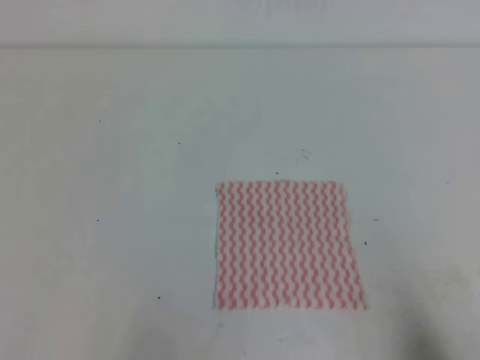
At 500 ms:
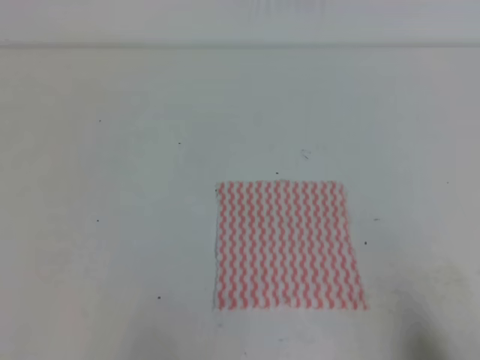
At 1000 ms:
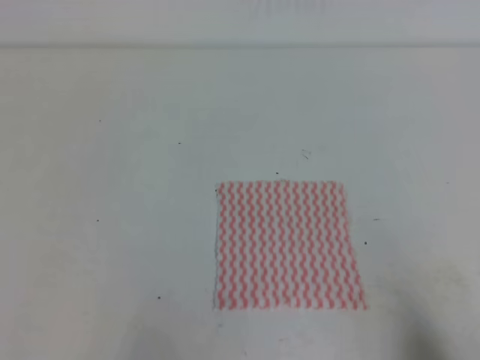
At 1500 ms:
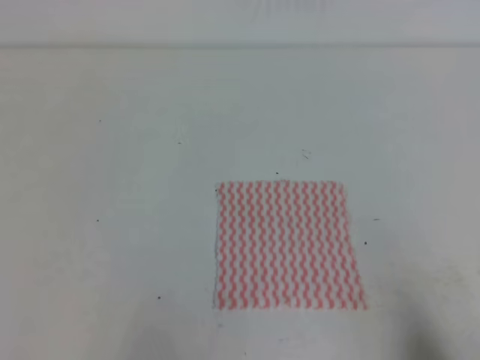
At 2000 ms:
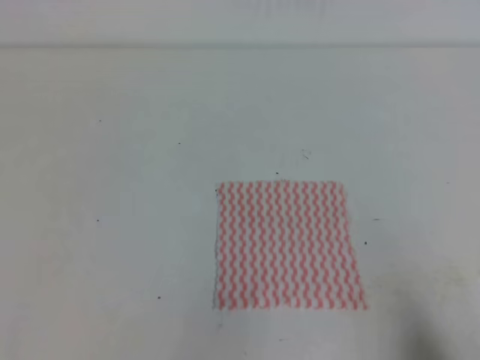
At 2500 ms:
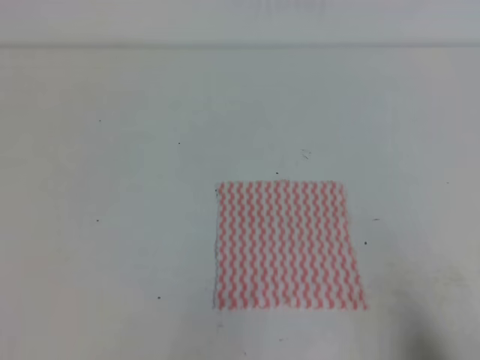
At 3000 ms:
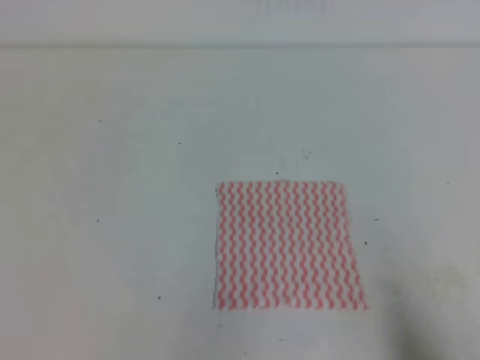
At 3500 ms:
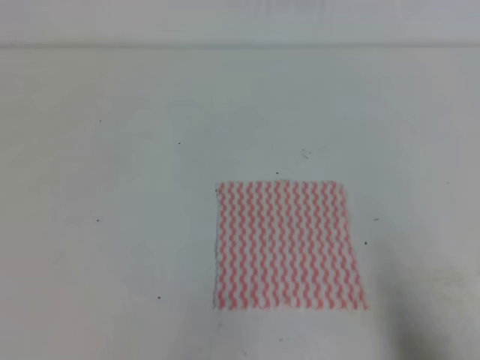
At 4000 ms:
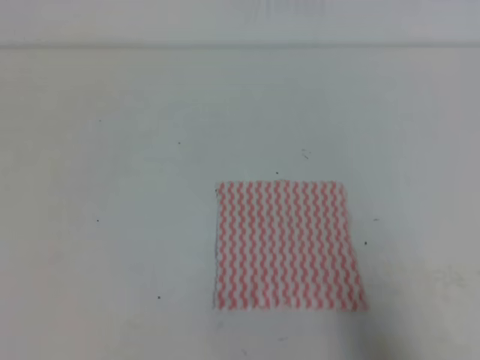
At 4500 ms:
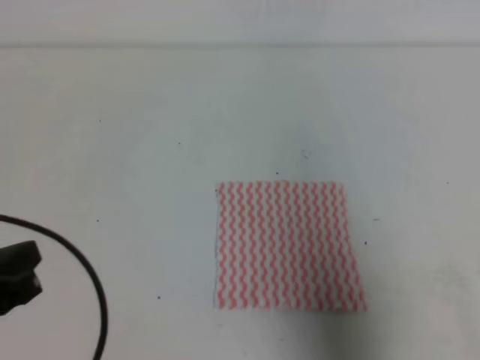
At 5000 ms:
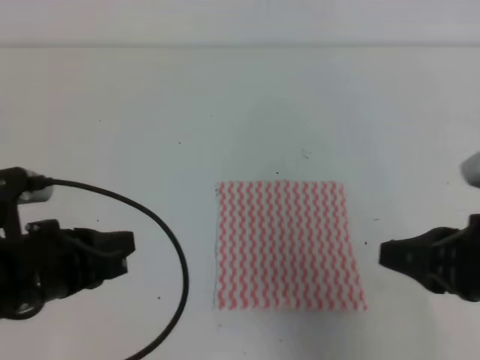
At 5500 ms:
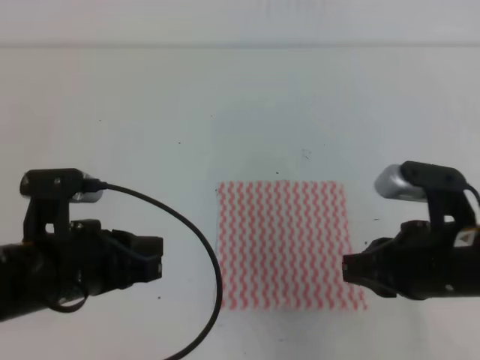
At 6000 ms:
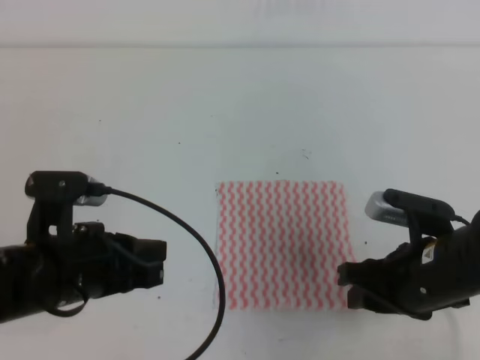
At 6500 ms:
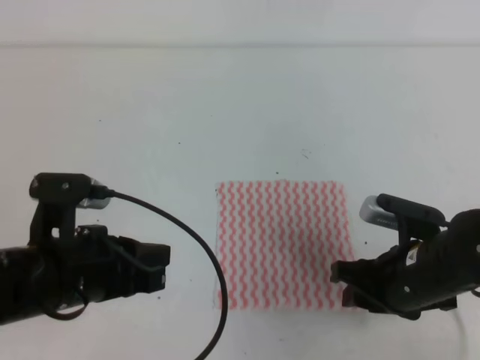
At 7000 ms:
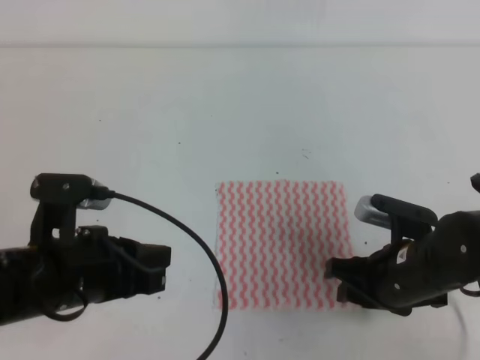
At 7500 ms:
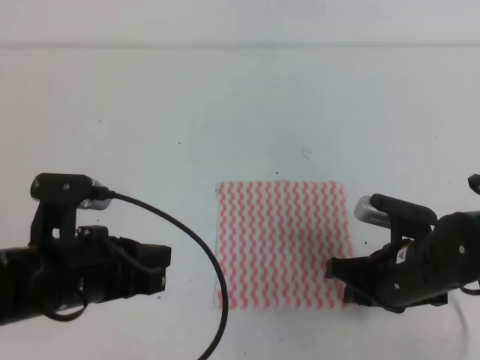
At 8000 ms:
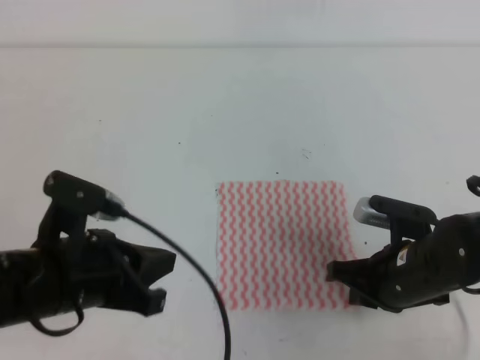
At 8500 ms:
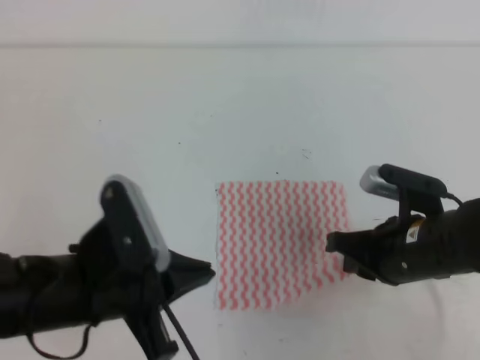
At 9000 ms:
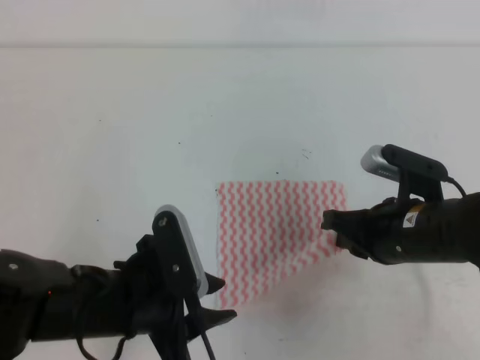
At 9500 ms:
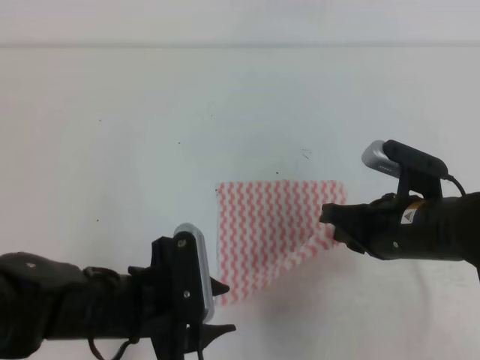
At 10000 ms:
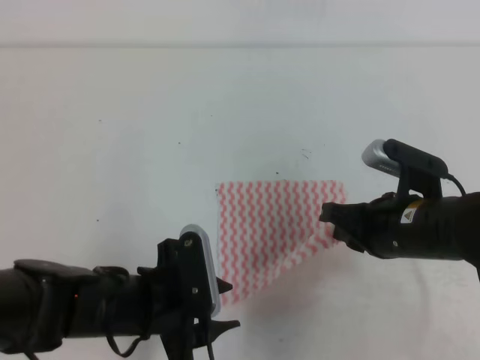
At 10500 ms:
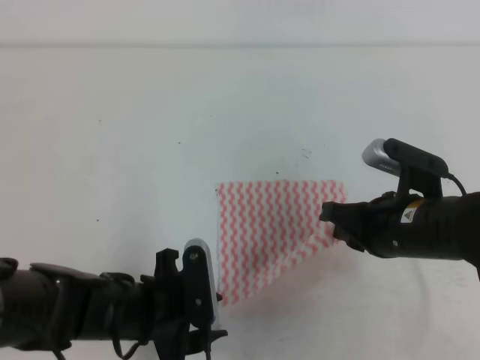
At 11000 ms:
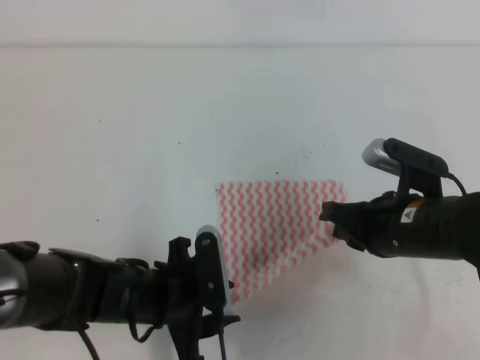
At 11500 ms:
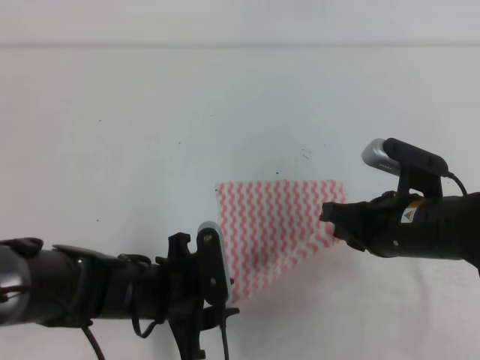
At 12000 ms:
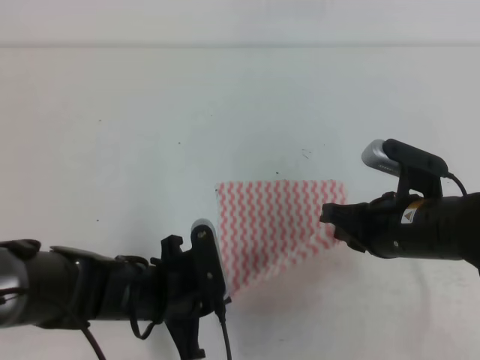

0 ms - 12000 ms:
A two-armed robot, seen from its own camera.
2000 ms - 4000 ms: The right gripper moves upward, some 5 cm.
4000 ms - 6000 ms: The right gripper is displaced forward and to the left by approximately 20 cm, and opens up. The left gripper goes about 15 cm forward and to the right.
6000 ms - 8000 ms: The right gripper shifts by some 5 cm, and closes up.
8000 ms - 10000 ms: The right gripper ends up some 5 cm from where it was; the left gripper heads downward and to the right, covering some 10 cm, and opens up.
10000 ms - 12000 ms: The left gripper closes its fingers.

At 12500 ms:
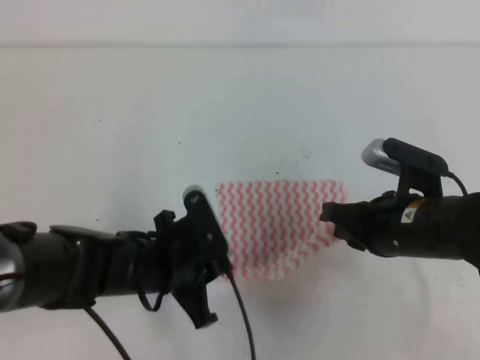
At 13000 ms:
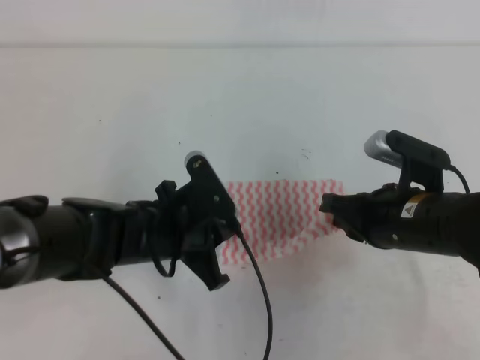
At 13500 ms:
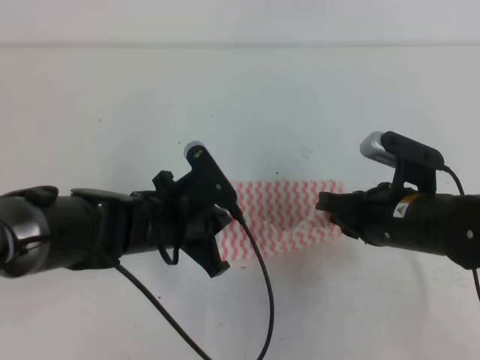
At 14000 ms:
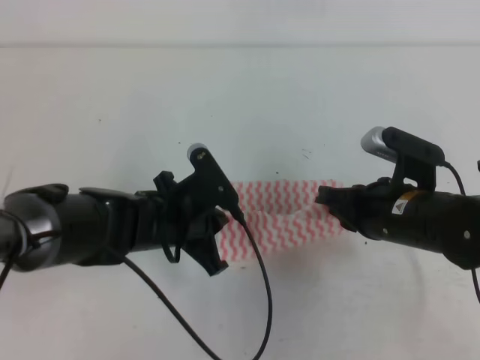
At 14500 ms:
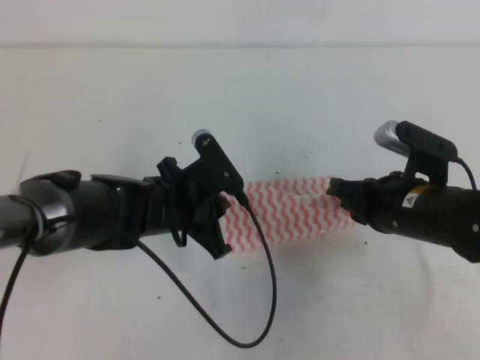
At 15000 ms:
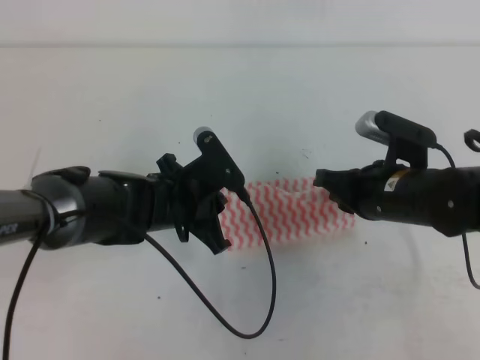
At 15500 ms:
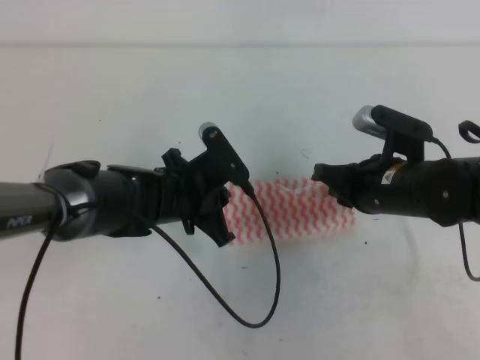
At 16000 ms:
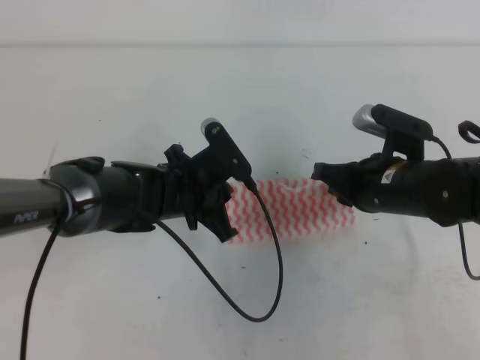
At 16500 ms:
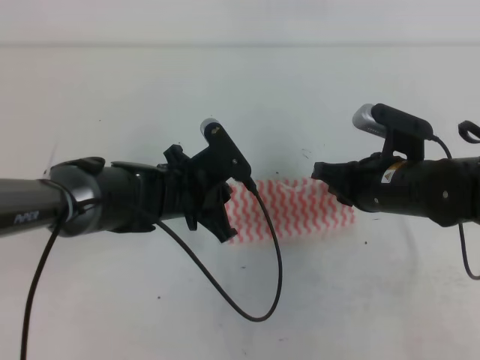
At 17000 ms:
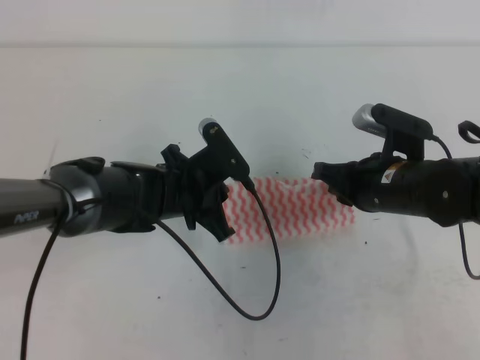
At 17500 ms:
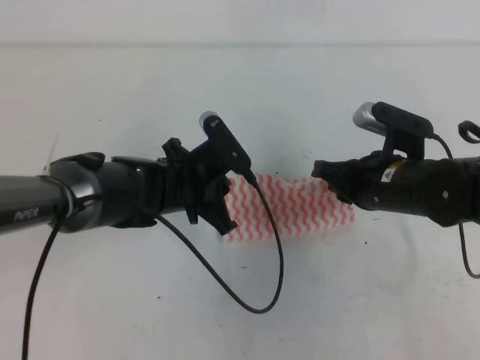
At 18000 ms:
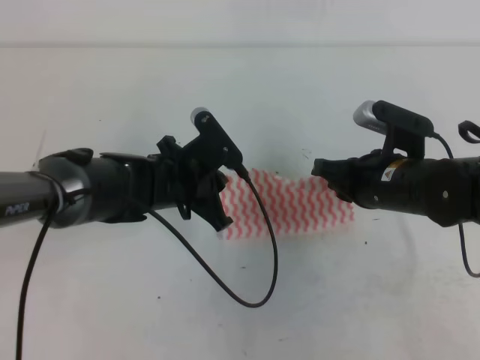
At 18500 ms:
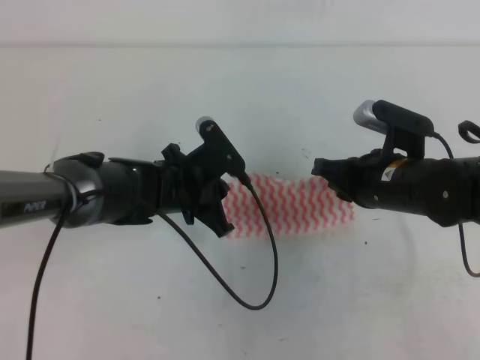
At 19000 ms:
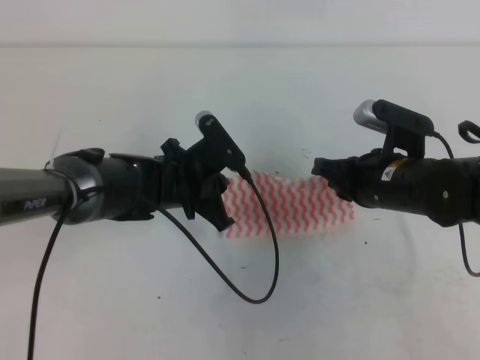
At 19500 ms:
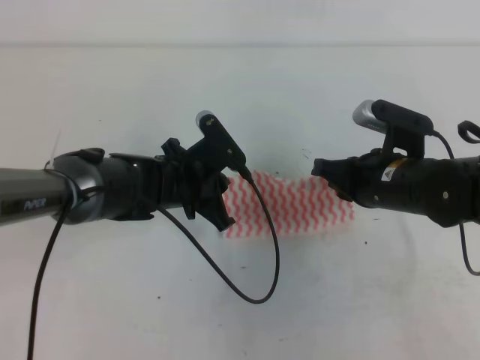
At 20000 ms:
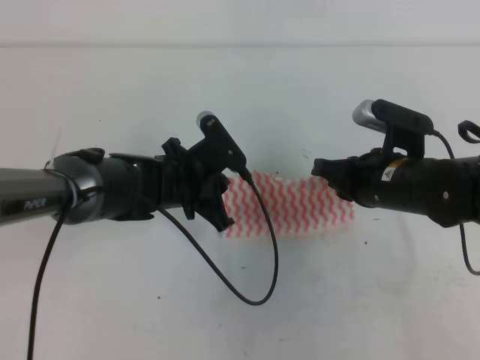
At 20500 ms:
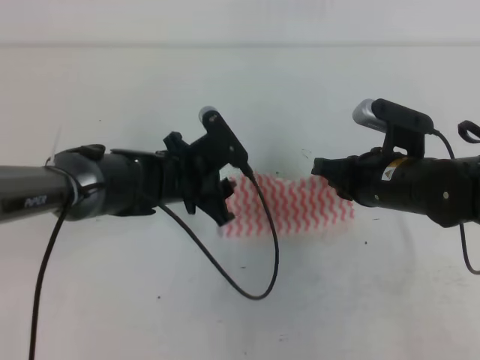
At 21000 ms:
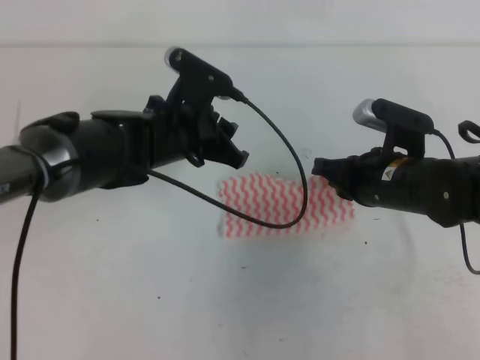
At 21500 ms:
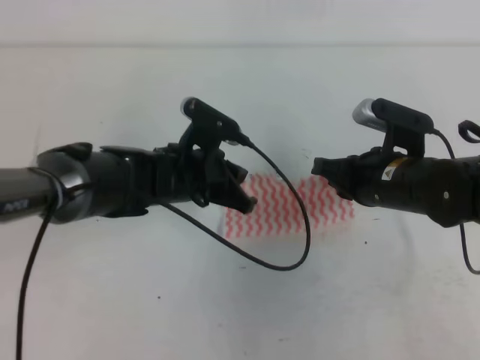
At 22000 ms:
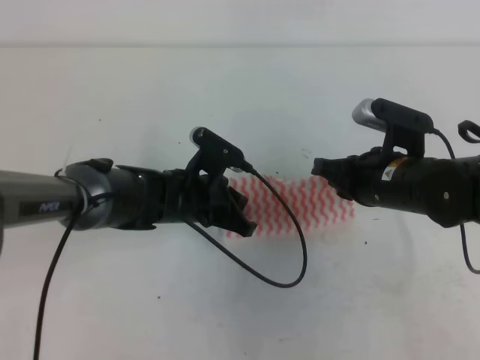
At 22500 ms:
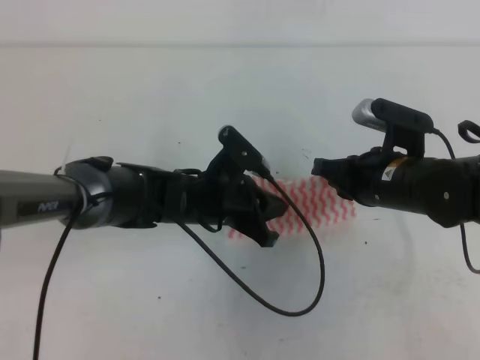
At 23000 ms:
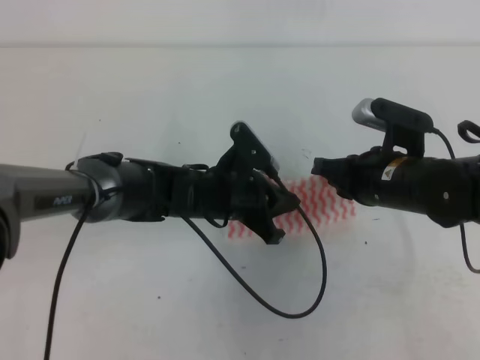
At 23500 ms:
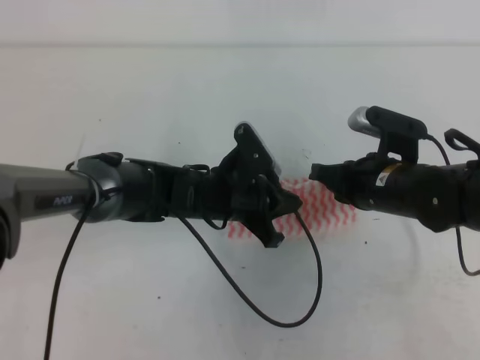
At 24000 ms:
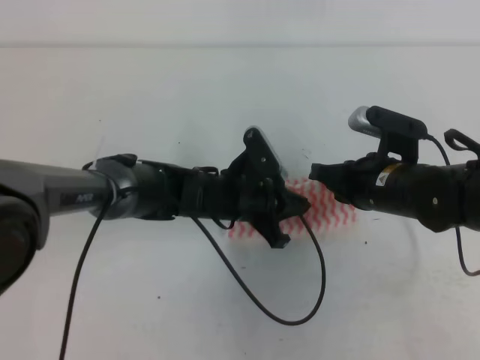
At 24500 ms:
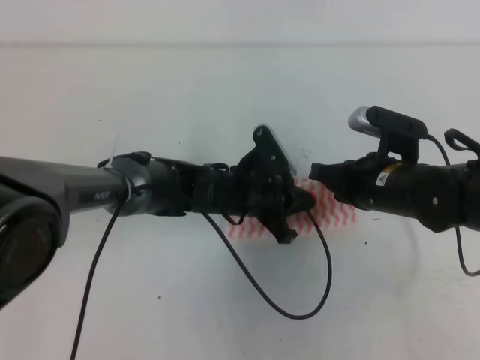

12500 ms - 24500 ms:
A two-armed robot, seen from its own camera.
12500 ms - 14500 ms: The left gripper travels forward by approximately 5 cm.
14500 ms - 18500 ms: The grippers move only a little.
18500 ms - 20500 ms: The left gripper opens up.
20500 ms - 22500 ms: The left gripper moves some 5 cm upward and comes back, and closes its fingers.
22500 ms - 24500 ms: The left gripper moves some 5 cm.

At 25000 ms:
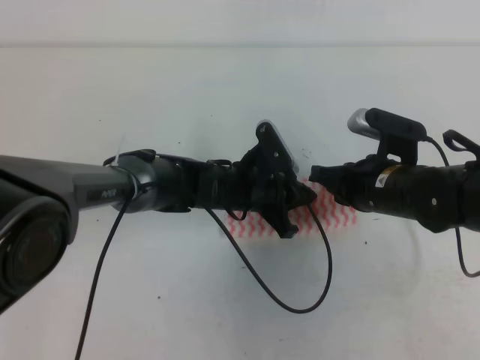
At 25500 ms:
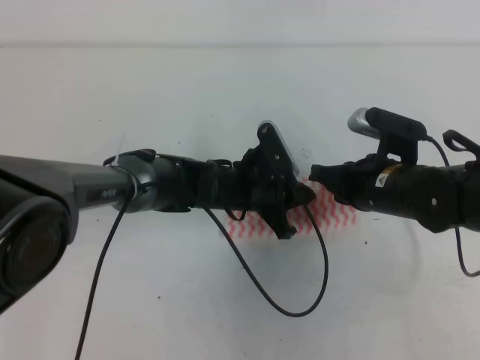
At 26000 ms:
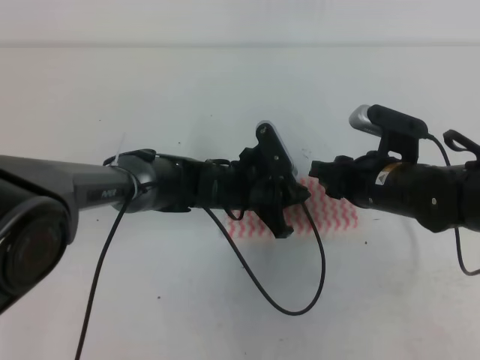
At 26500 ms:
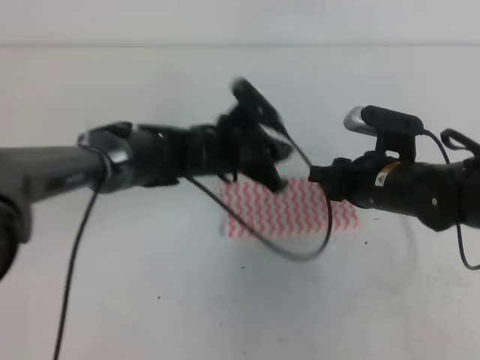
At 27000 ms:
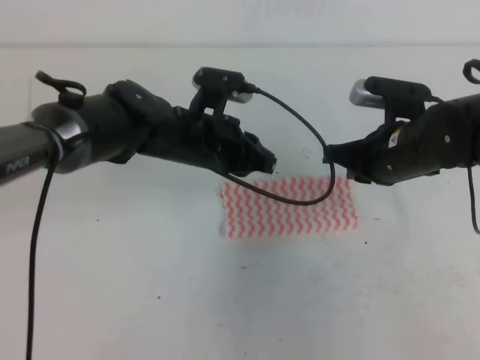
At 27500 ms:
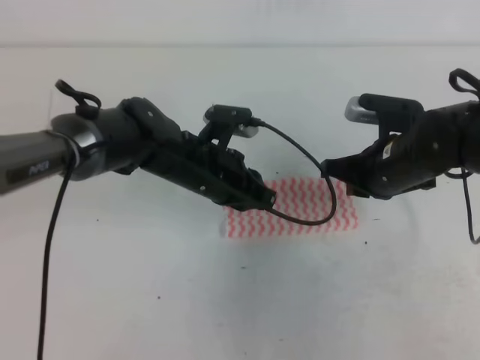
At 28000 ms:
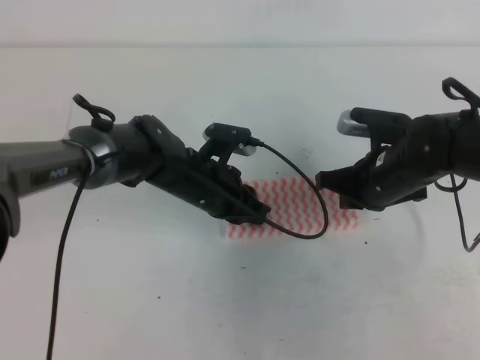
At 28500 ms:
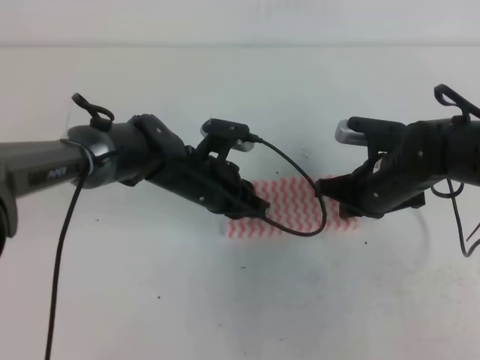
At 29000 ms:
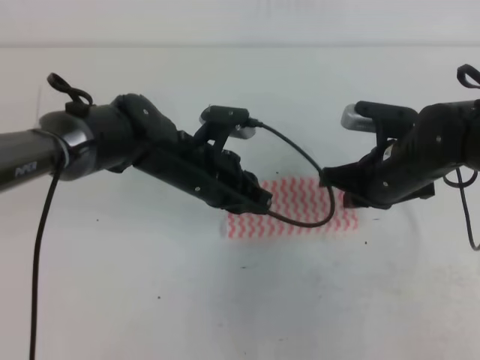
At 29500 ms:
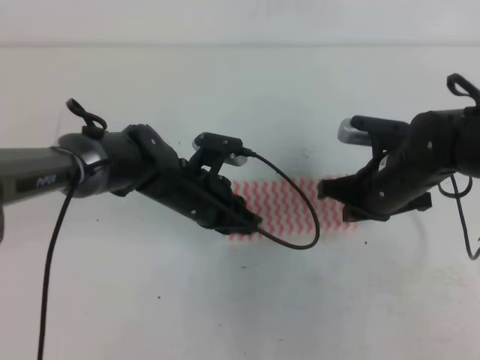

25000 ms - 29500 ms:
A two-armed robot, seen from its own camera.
25000 ms - 27000 ms: The right gripper opens and closes again. The left gripper heads upward, covering some 10 cm.
27000 ms - 29500 ms: The left gripper heads downward, covering some 5 cm.
